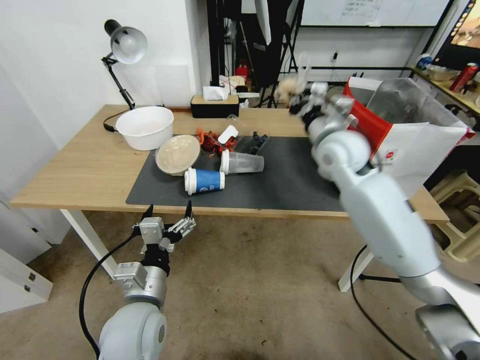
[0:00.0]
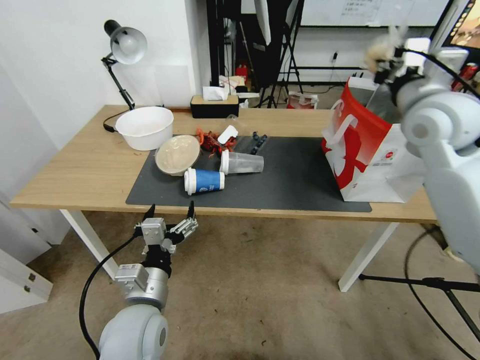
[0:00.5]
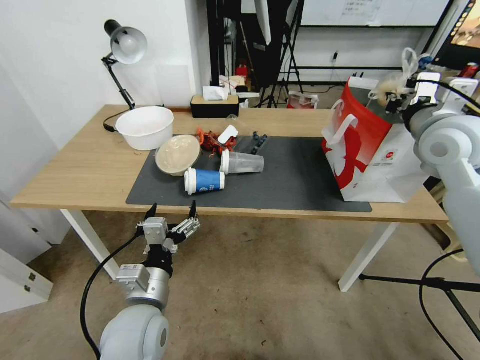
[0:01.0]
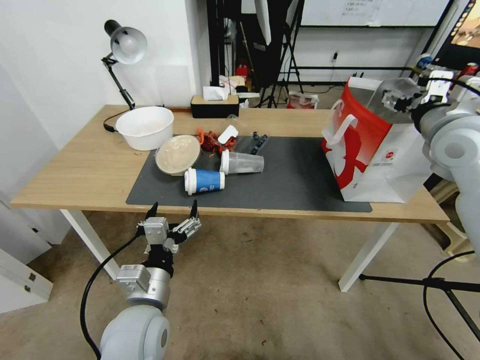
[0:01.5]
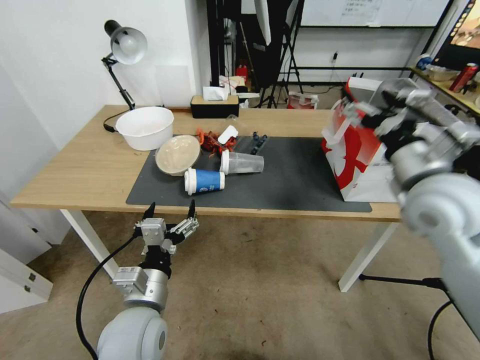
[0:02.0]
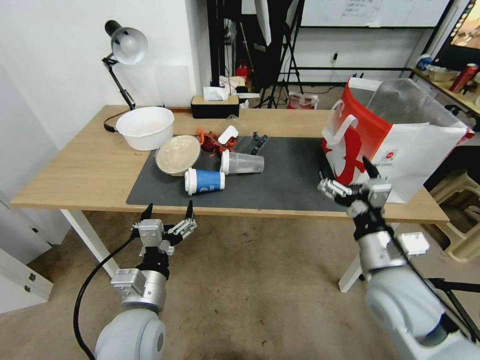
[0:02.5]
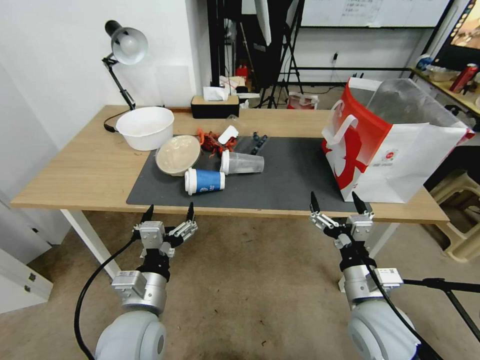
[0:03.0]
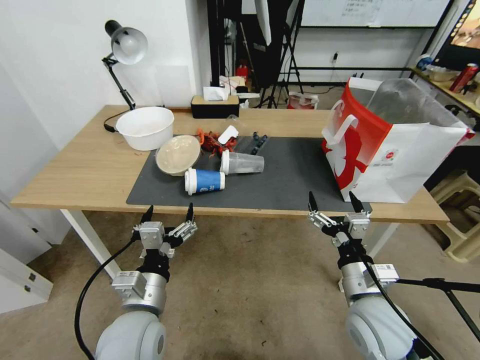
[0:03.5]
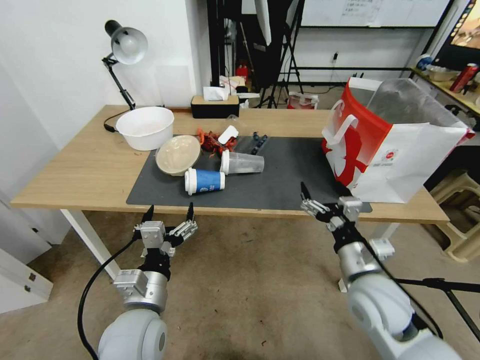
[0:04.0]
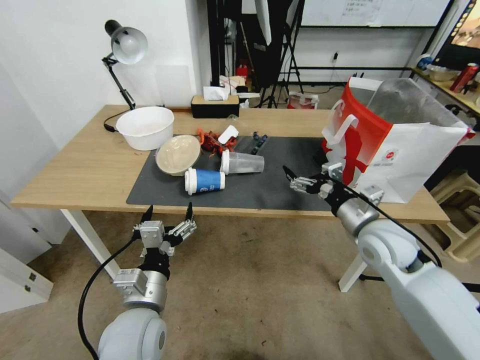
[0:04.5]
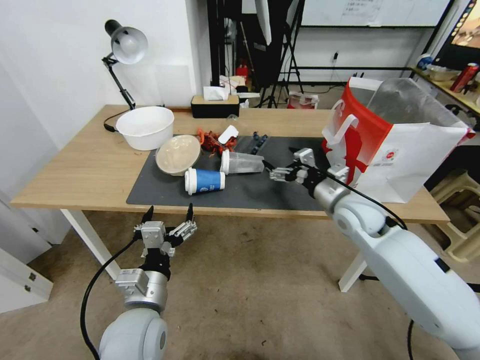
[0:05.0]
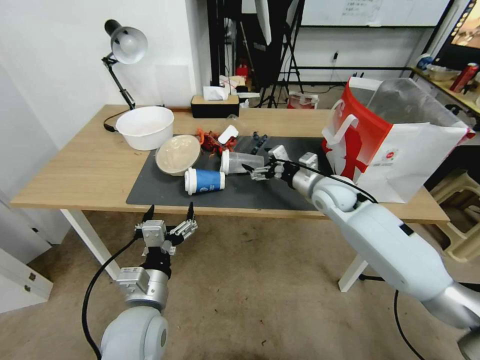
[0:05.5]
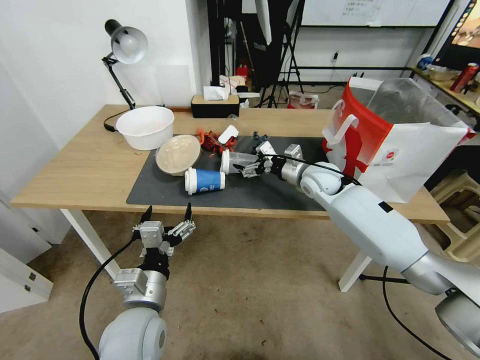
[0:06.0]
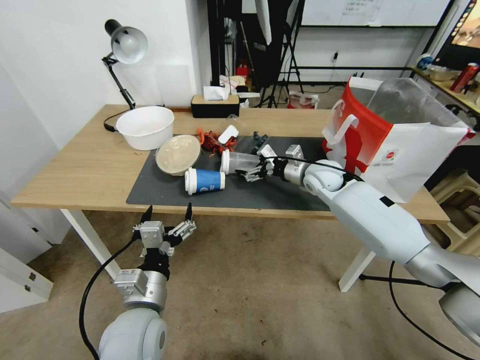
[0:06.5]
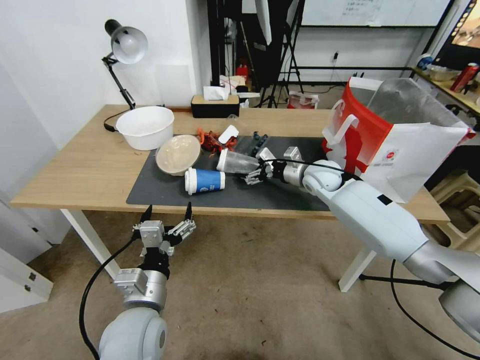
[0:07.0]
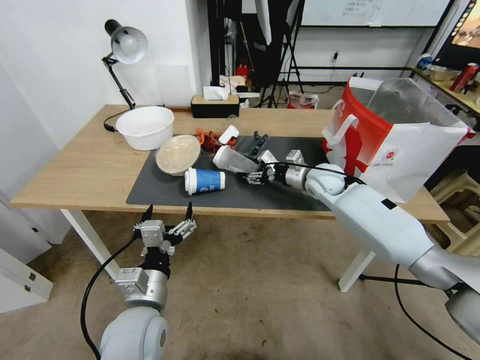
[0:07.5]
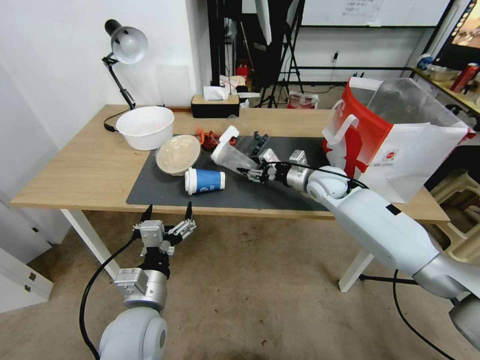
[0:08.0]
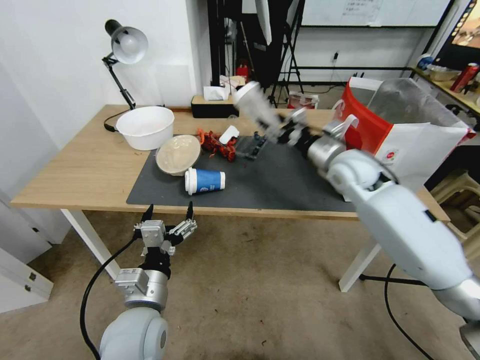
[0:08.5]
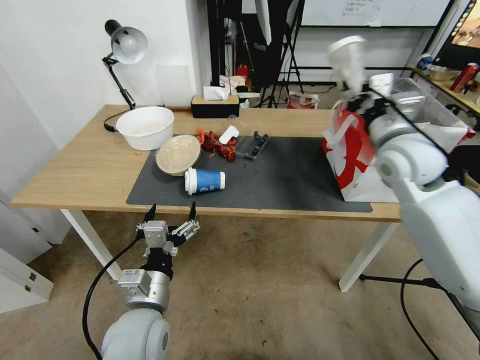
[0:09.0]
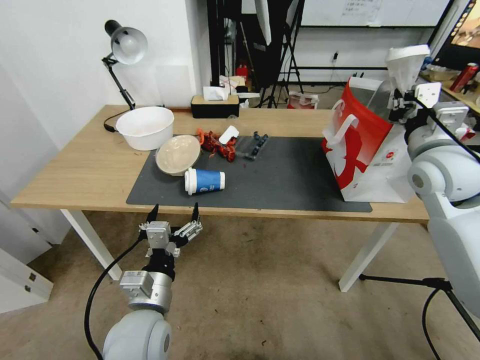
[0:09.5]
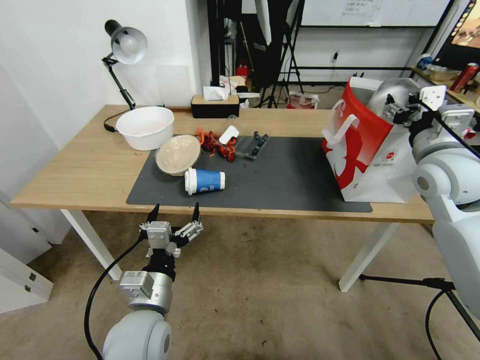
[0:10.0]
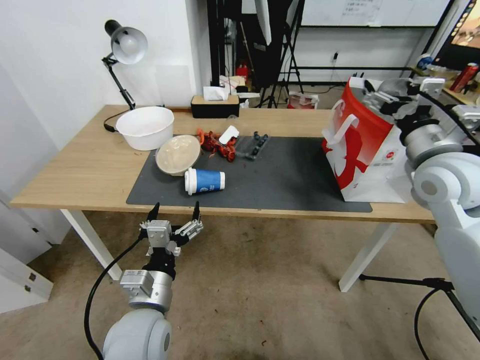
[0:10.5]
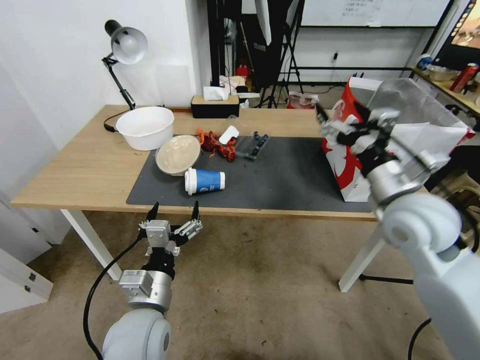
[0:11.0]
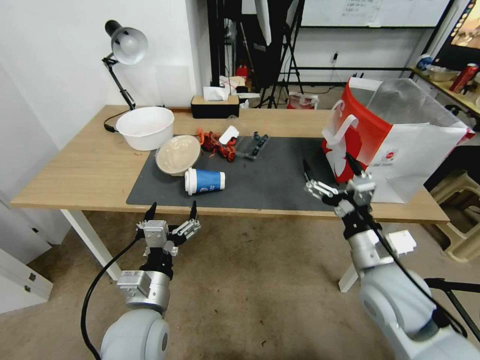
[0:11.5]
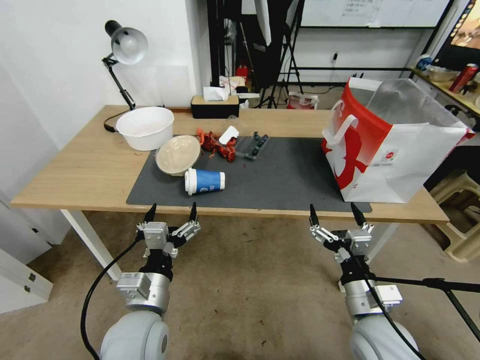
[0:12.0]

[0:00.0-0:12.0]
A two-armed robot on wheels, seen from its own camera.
0:00.0 to 0:02.0: The right gripper moves backward and to the right, some 15 cm, and opens up.
0:02.0 to 0:04.0: The right gripper moves downward and backward, approximately 25 cm.
0:04.0 to 0:06.0: The right gripper goes roughly 25 cm forward.
0:06.0 to 0:08.0: The right gripper closes its fingers.
0:08.0 to 0:10.0: The right gripper heads upward, backward and to the right, covering about 25 cm.
0:10.0 to 0:12.0: The right gripper travels downward, backward and to the left by some 30 cm.

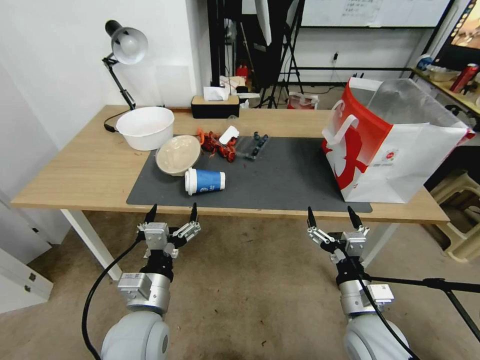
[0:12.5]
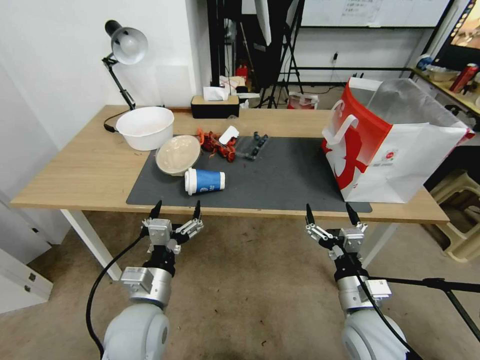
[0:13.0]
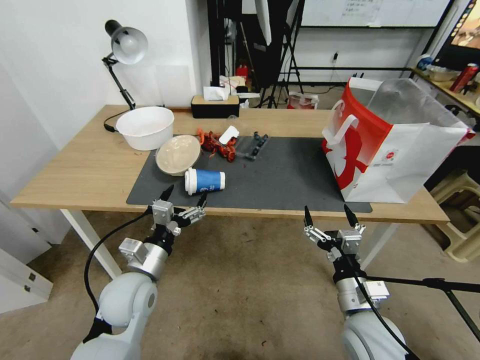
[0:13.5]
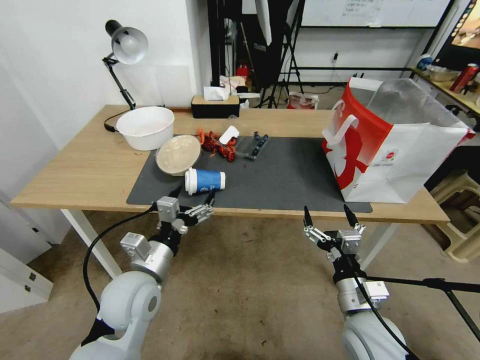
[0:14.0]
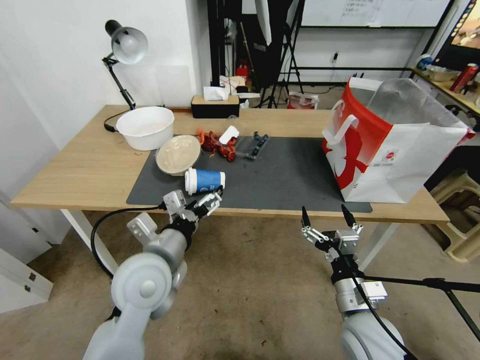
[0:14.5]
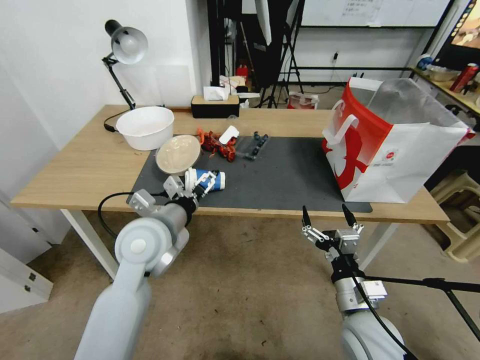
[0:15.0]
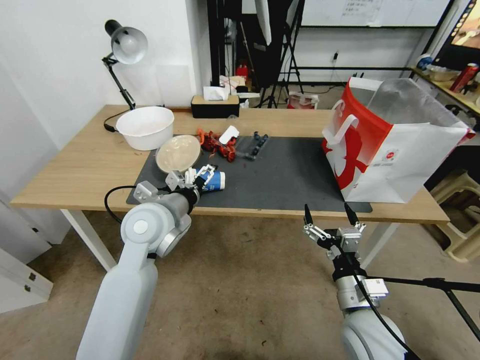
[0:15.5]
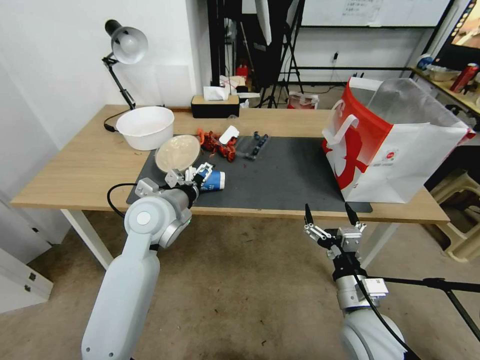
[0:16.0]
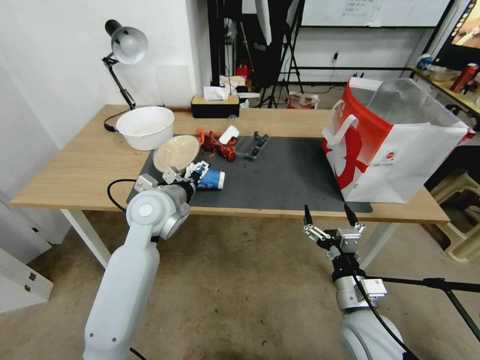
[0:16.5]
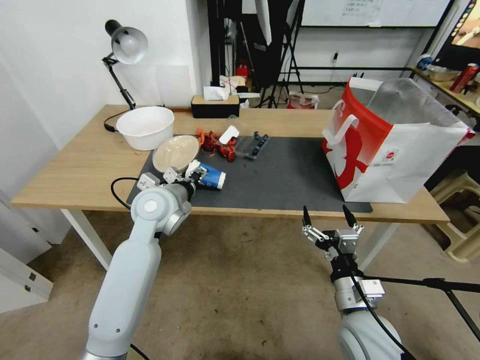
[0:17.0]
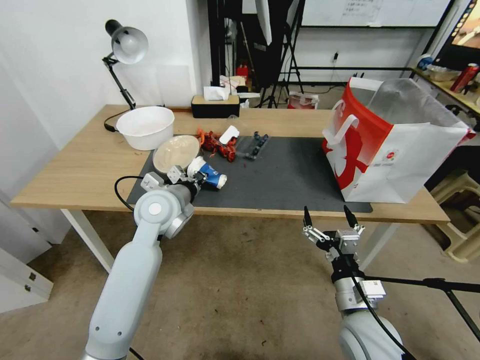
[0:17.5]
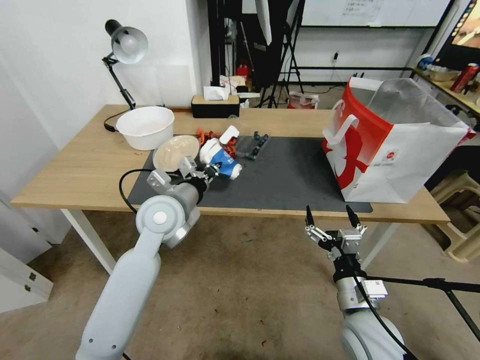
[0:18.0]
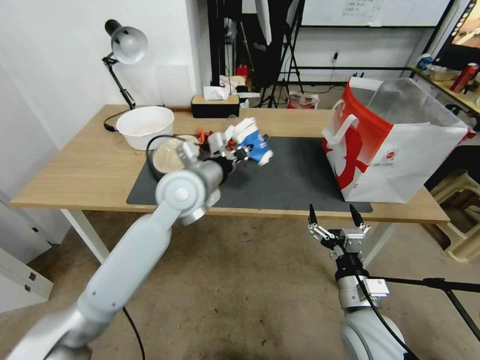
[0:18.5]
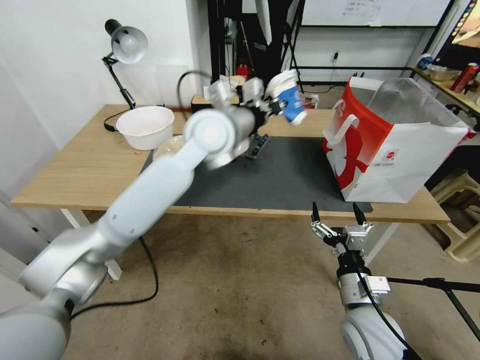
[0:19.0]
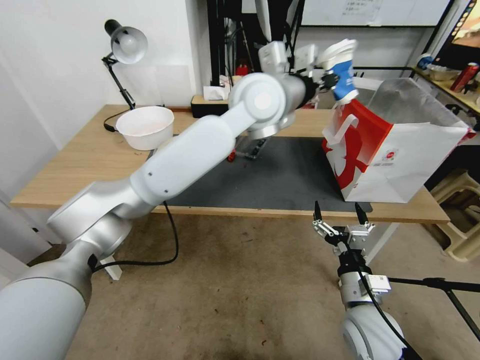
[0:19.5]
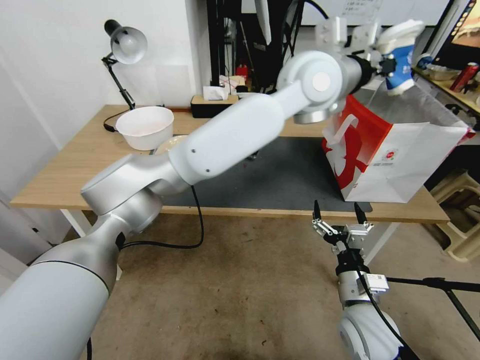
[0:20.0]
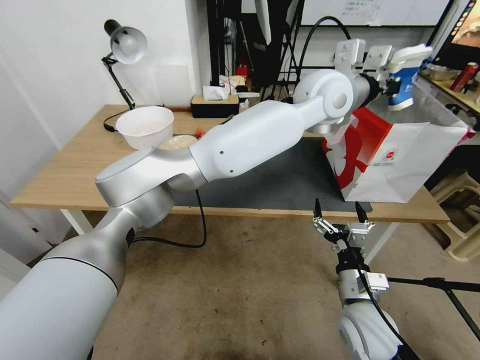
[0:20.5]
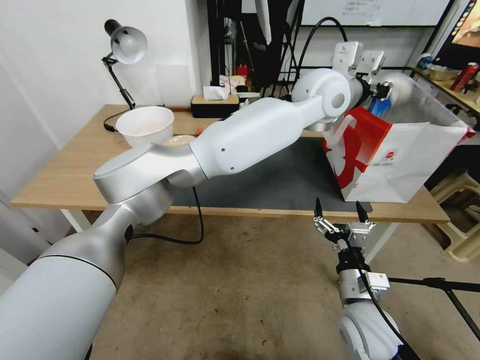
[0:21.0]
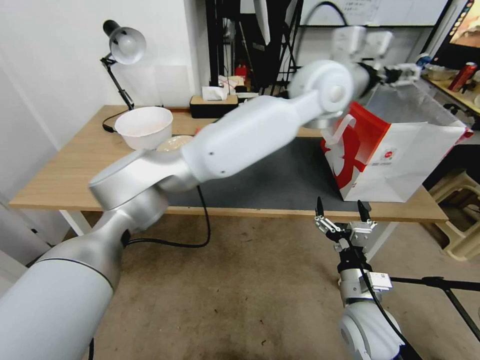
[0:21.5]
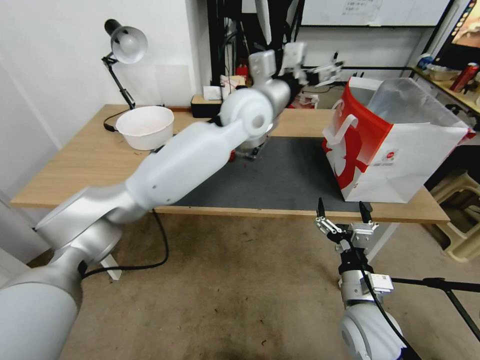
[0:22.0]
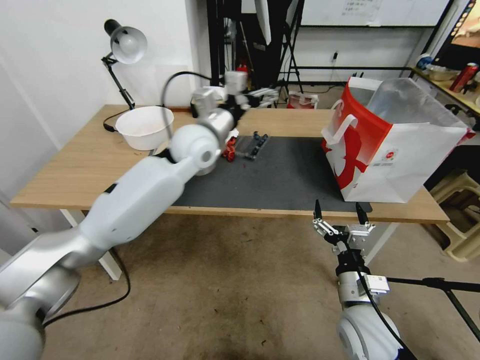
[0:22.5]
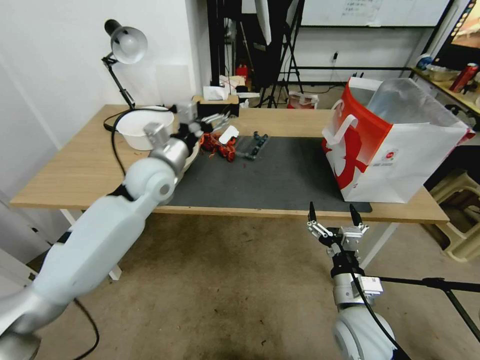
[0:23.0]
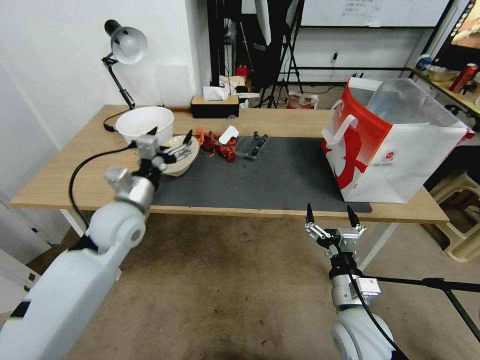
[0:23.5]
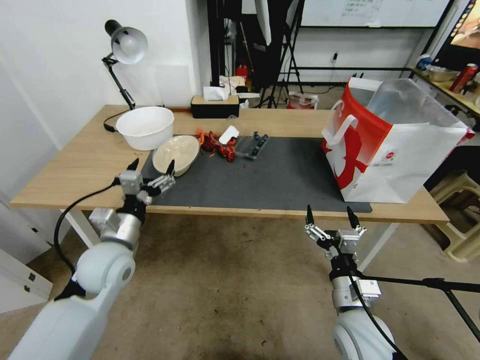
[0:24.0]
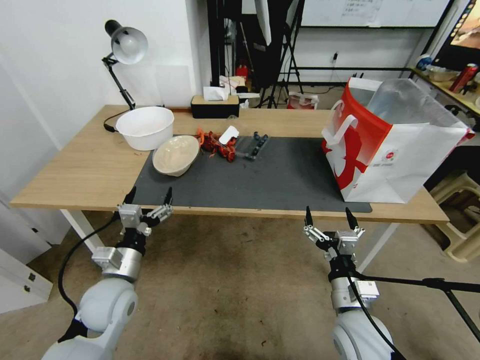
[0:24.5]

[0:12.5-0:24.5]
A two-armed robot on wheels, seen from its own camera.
0:12.5 to 0:14.5: The left gripper moves forward and upward, roughly 10 cm.
0:14.5 to 0:16.5: The left gripper moves forward, roughly 15 cm.
0:16.5 to 0:18.5: The left gripper moves to the right, about 5 cm, and closes.
0:18.5 to 0:20.5: The left gripper travels to the right and upward by roughly 30 cm.
0:20.5 to 0:22.5: The left gripper heads to the left and downward, covering roughly 25 cm, and opens its fingers.
0:22.5 to 0:24.5: The left gripper is displaced backward, downward and to the left by approximately 35 cm.

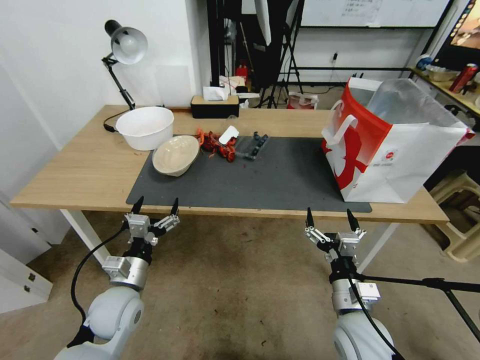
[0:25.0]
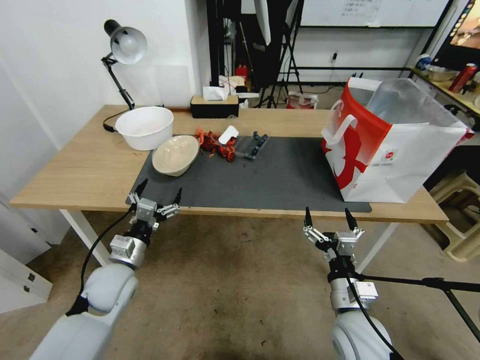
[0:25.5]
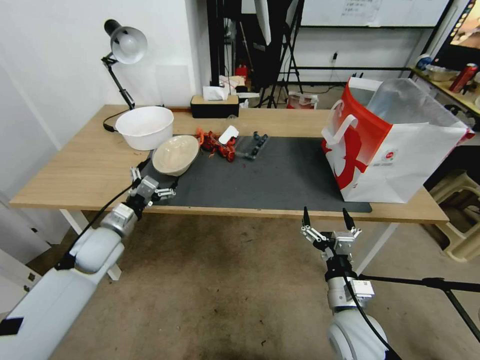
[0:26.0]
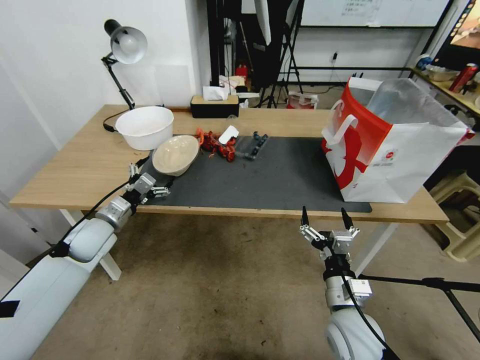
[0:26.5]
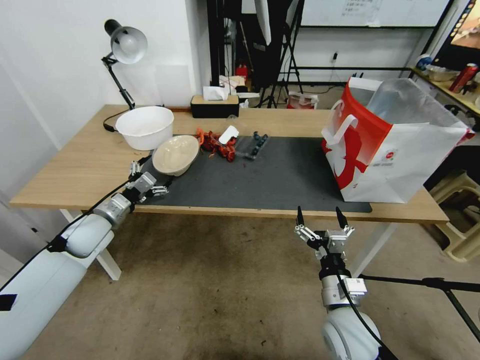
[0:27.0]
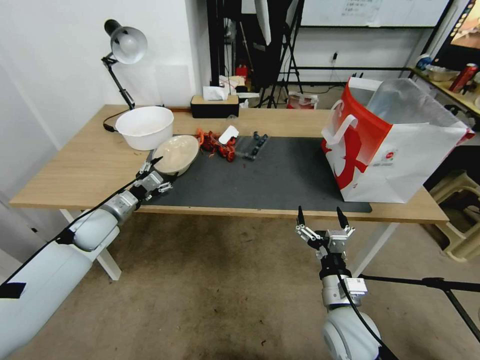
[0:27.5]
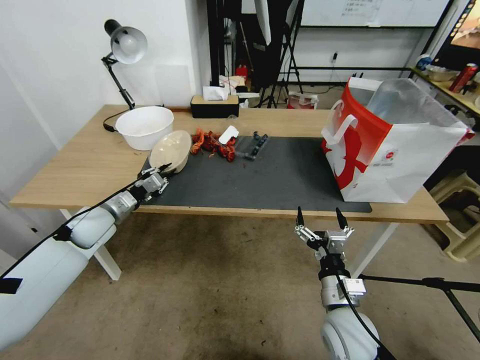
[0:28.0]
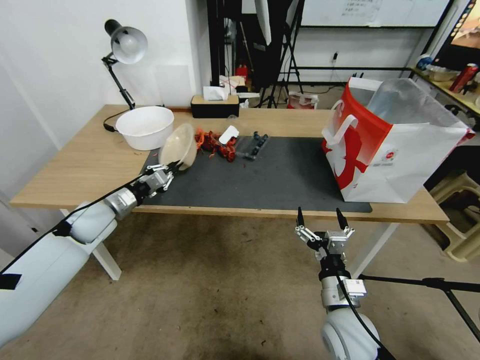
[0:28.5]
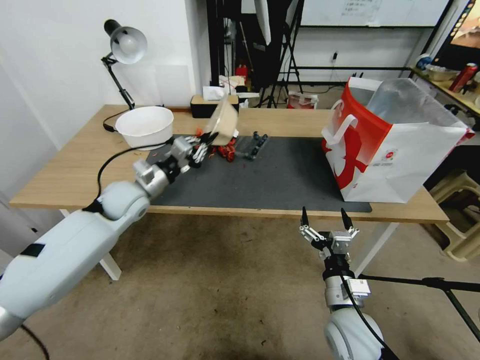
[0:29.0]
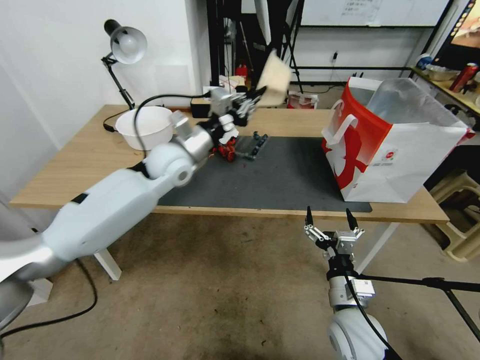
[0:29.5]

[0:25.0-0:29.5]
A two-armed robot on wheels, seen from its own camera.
0:25.0 to 0:27.0: The left gripper shifts approximately 20 cm forward, to the left and upward.
0:27.0 to 0:29.5: The left gripper is displaced to the right, upward and forward by approximately 25 cm, and closes its fingers.
